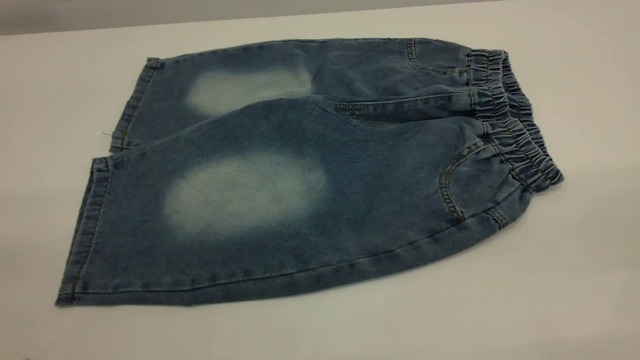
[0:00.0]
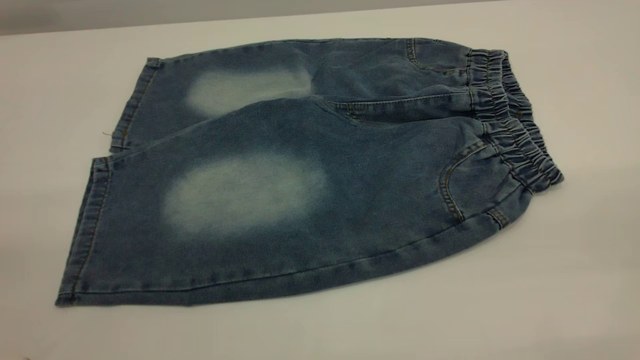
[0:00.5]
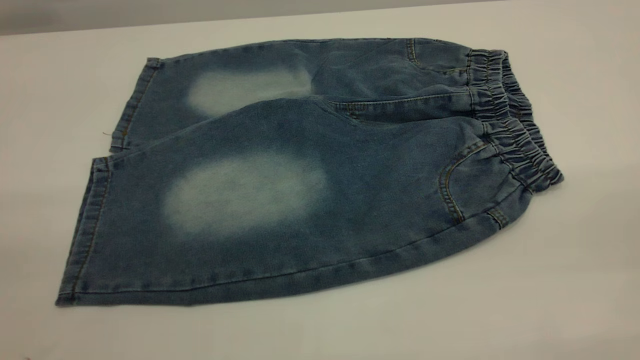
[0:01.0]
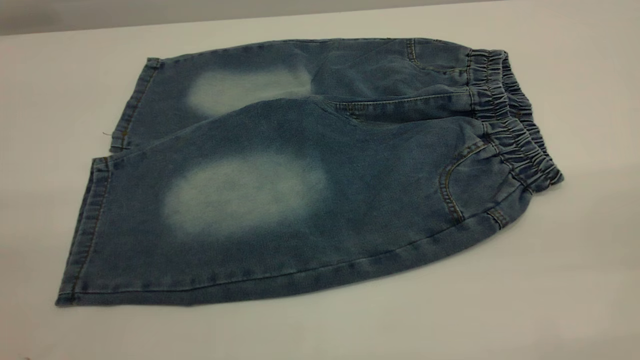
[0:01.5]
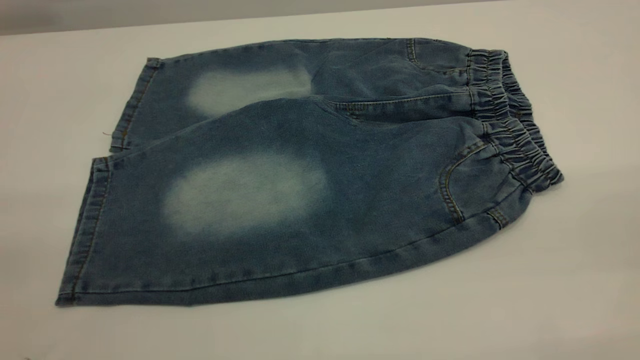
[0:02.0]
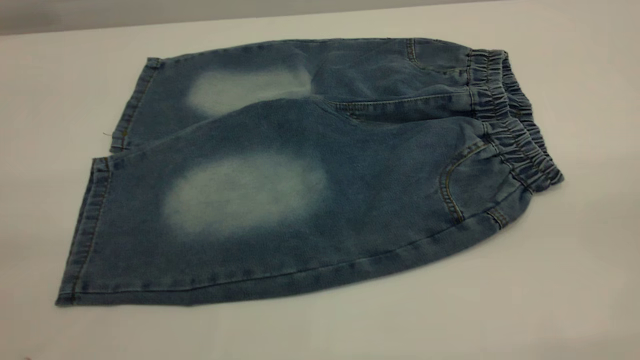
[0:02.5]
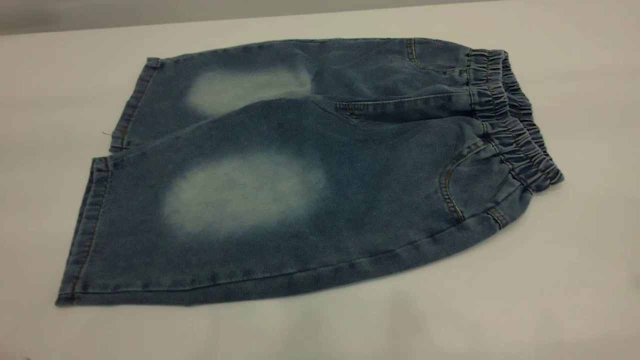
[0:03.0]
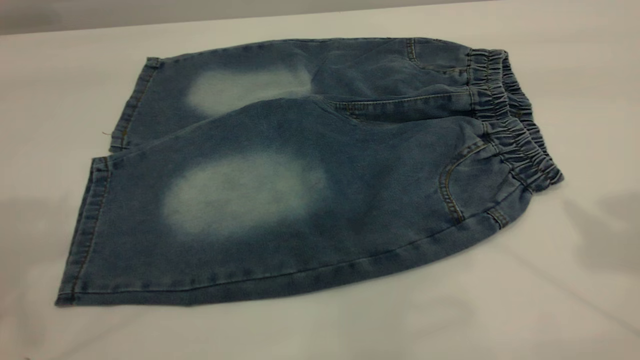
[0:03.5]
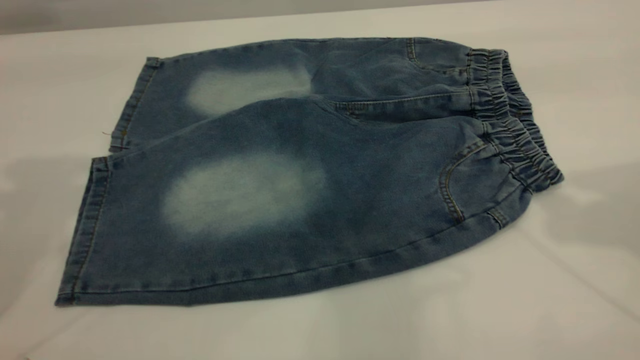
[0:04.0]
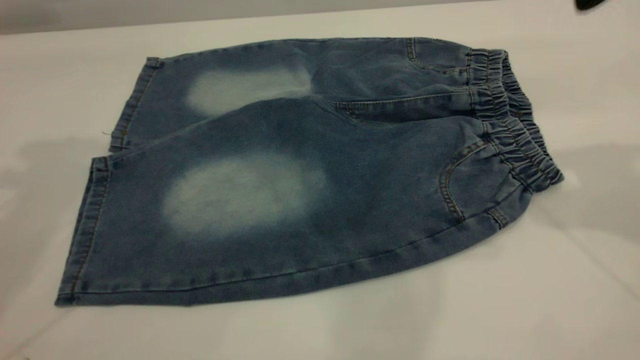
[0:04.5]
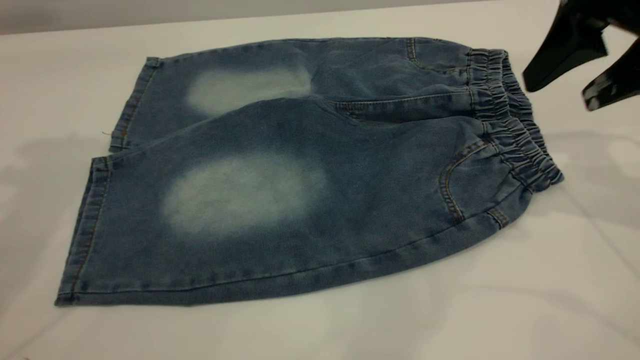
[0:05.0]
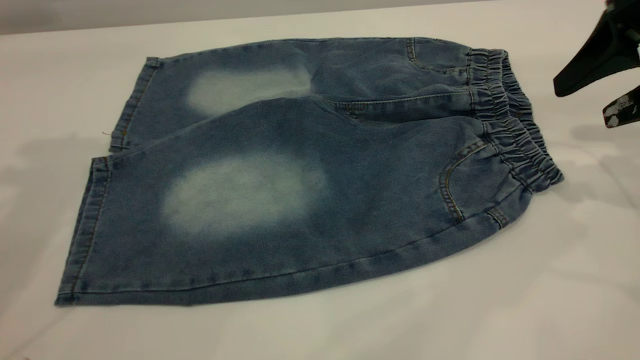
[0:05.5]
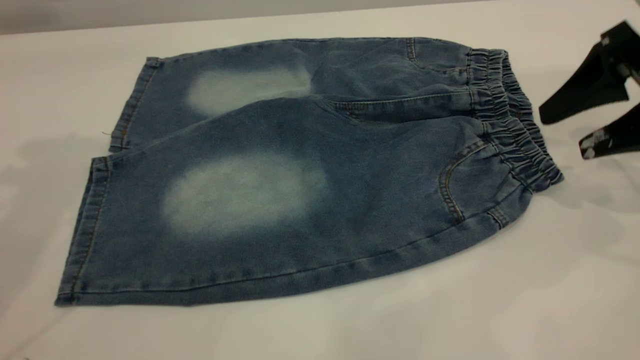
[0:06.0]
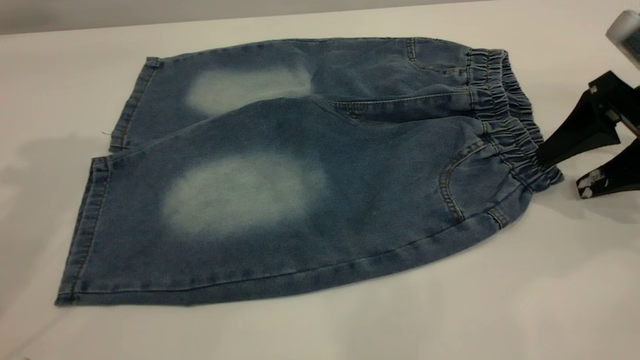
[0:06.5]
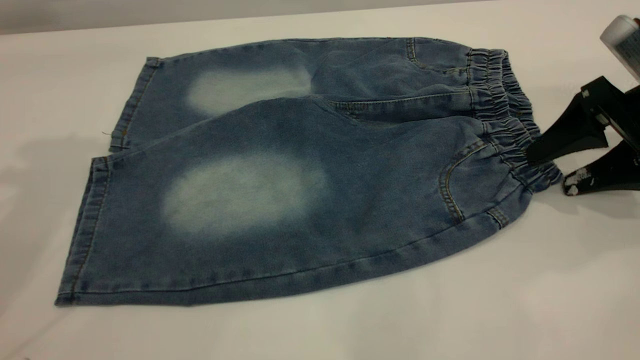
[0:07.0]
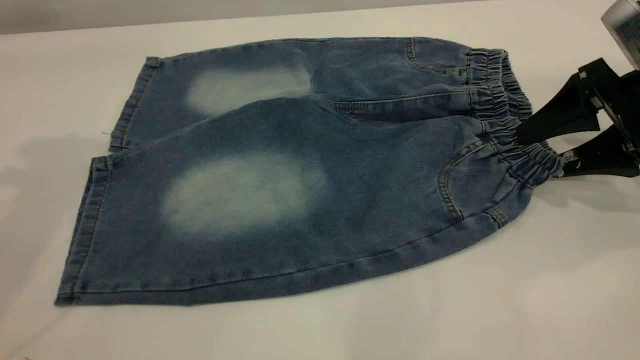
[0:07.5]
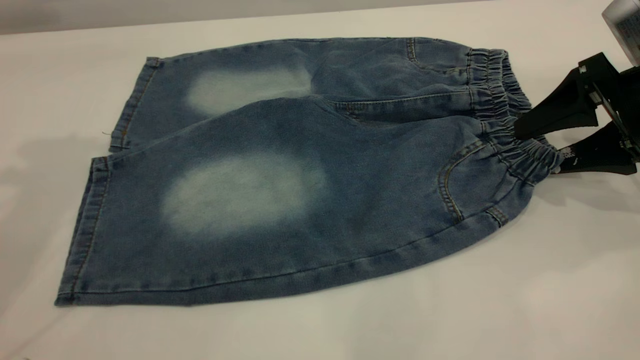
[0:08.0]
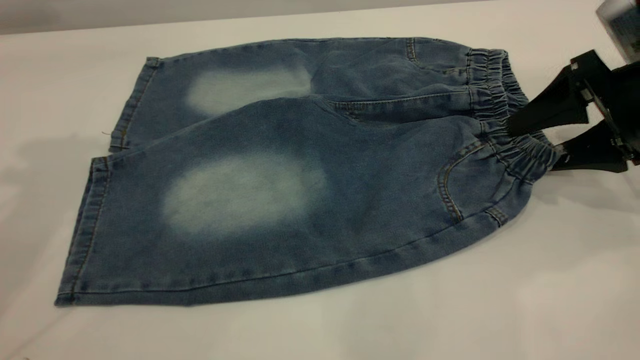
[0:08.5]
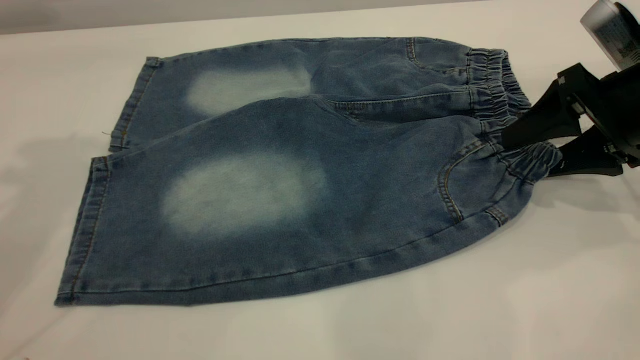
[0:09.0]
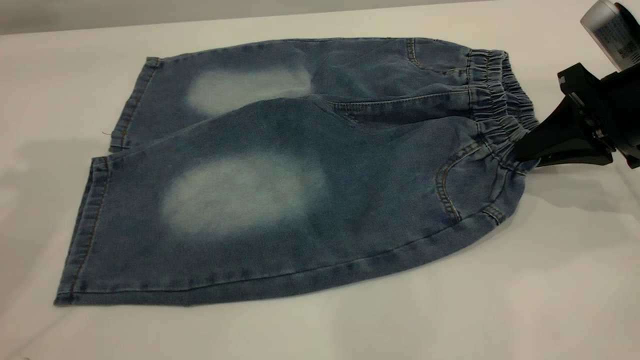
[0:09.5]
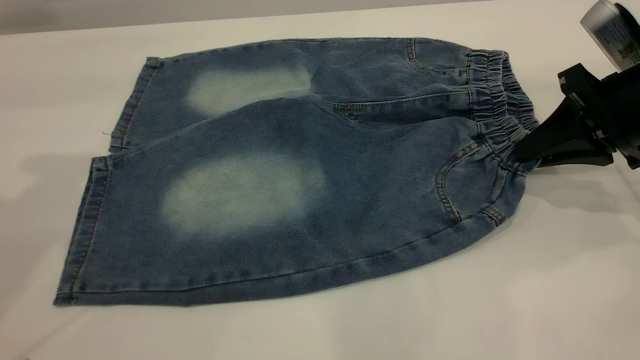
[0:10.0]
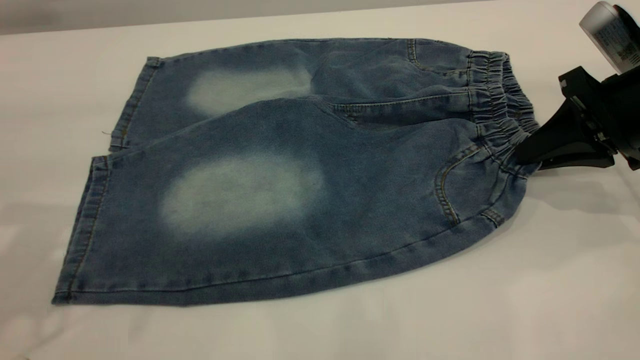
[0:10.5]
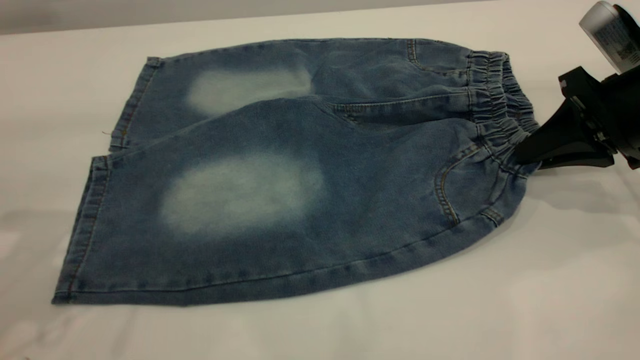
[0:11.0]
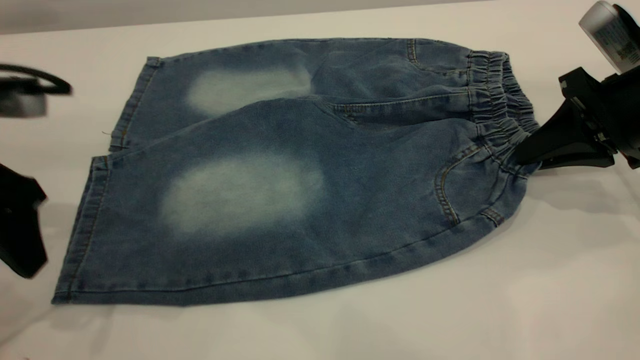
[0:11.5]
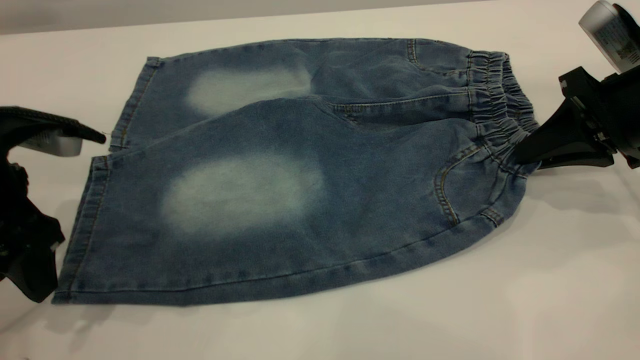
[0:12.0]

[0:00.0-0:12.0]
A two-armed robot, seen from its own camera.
0:00.0 to 0:02.0: Neither gripper changes place.
0:04.0 to 0:06.0: The right gripper moves downward, some 20 cm.
0:06.0 to 0:08.0: The grippers make only small movements.
0:08.0 to 0:10.0: The right gripper closes.
0:10.0 to 0:12.0: The left gripper heads downward, covering roughly 20 cm.

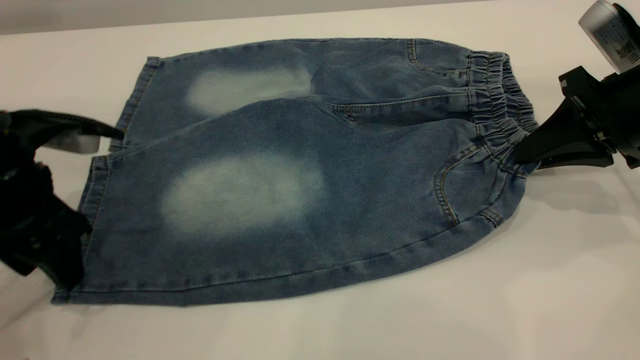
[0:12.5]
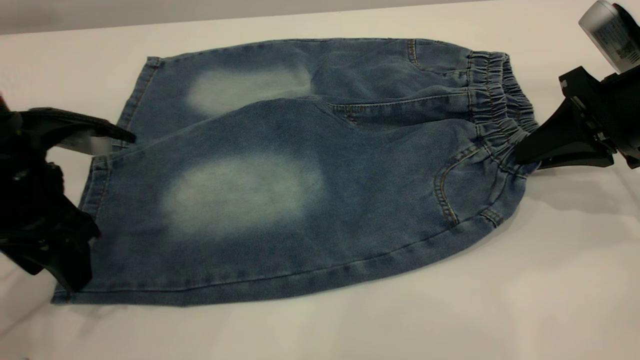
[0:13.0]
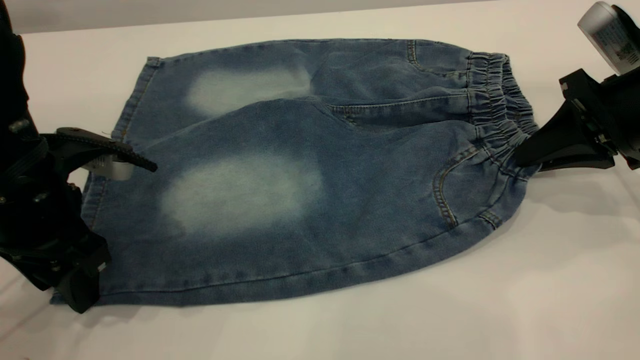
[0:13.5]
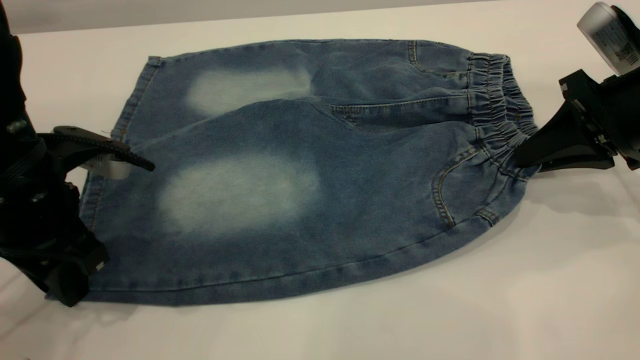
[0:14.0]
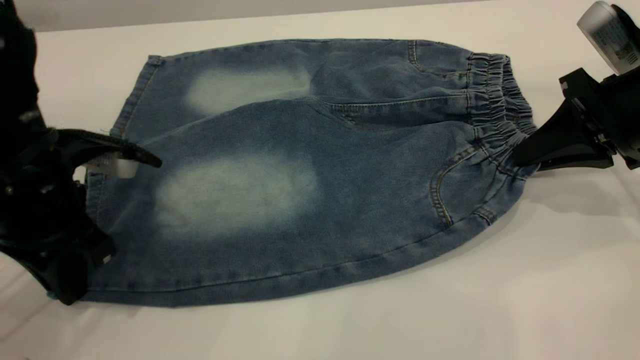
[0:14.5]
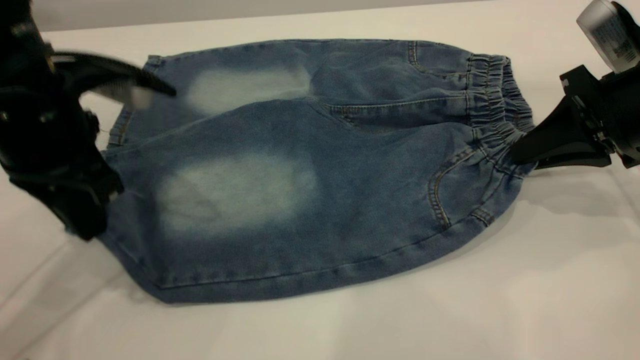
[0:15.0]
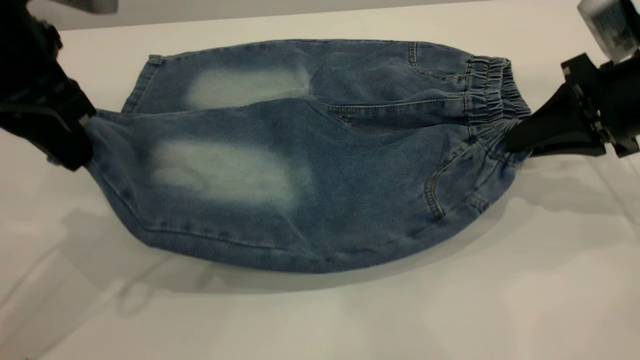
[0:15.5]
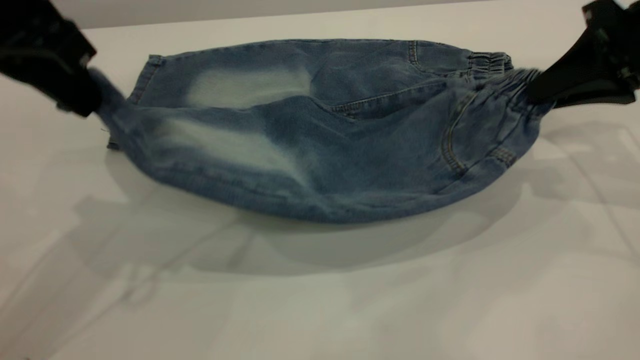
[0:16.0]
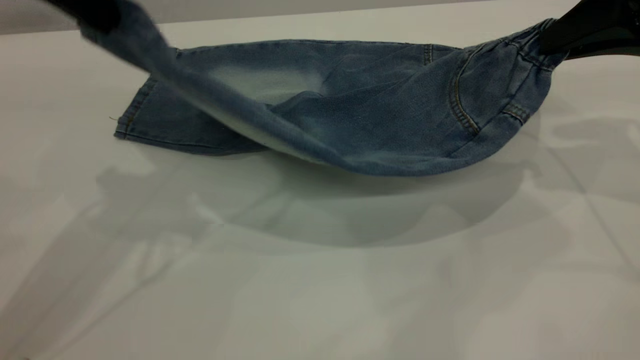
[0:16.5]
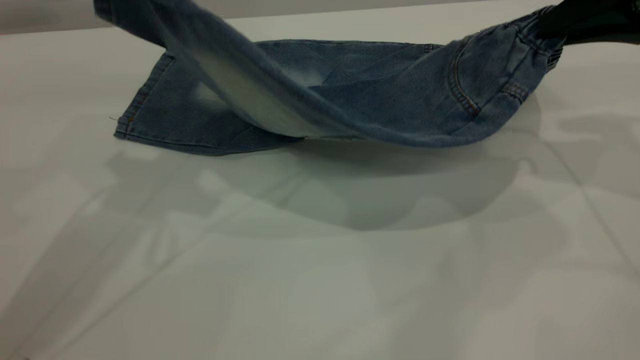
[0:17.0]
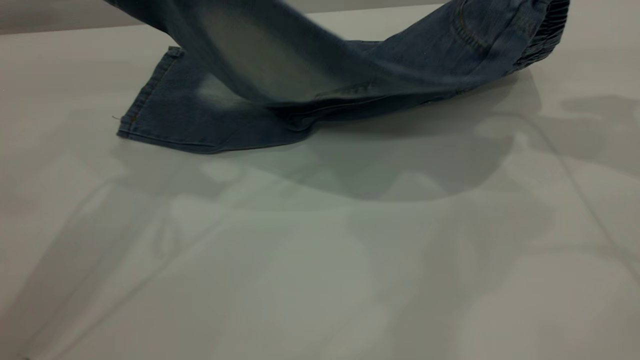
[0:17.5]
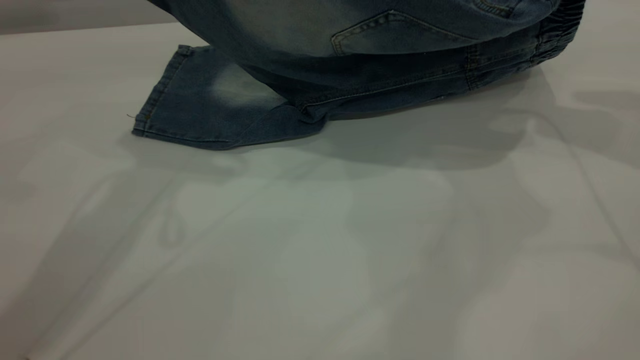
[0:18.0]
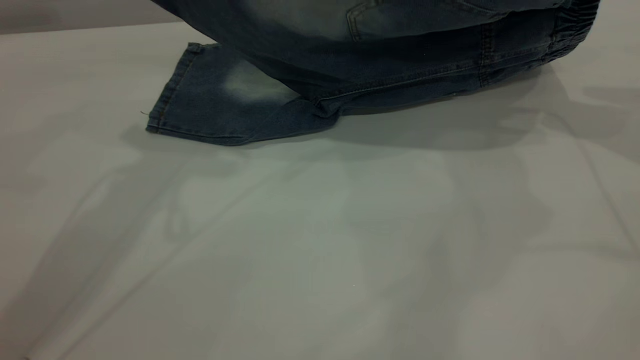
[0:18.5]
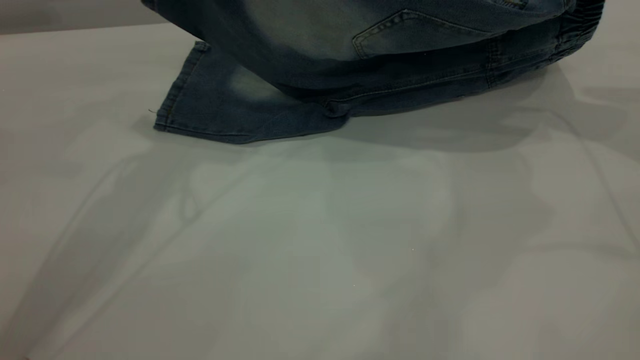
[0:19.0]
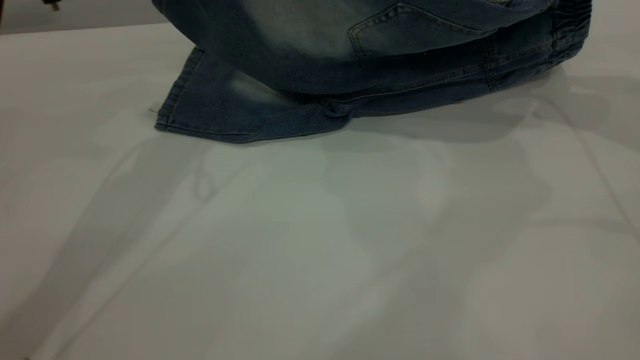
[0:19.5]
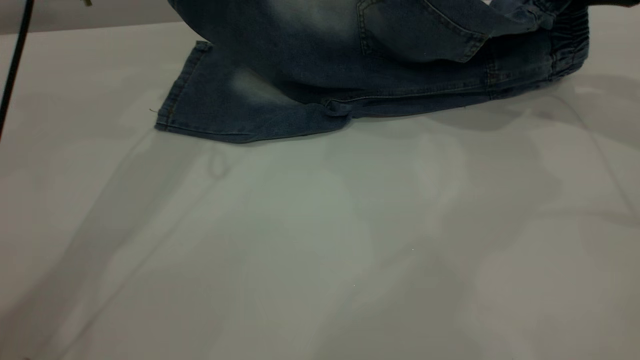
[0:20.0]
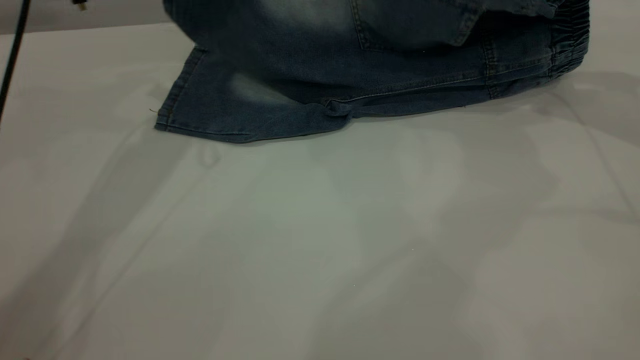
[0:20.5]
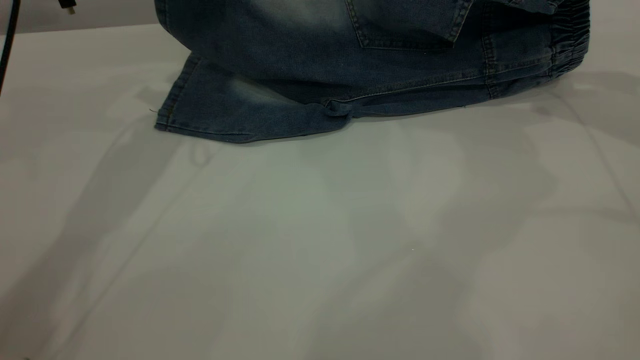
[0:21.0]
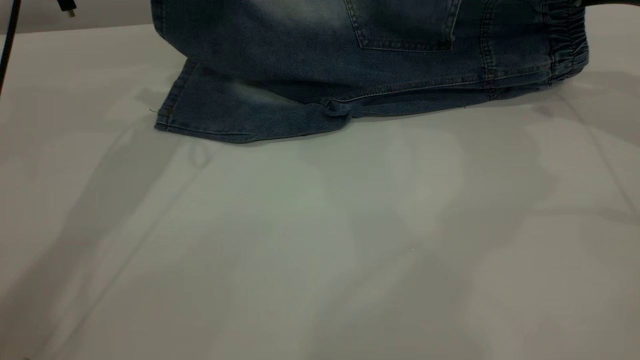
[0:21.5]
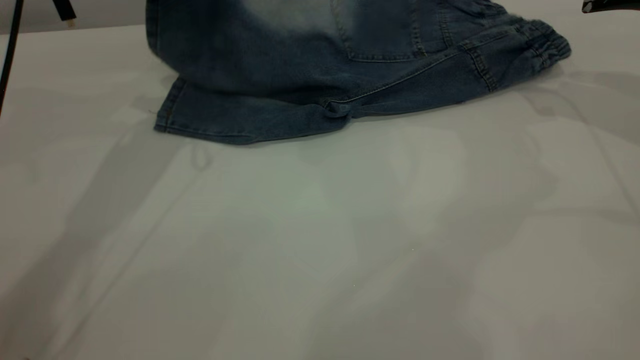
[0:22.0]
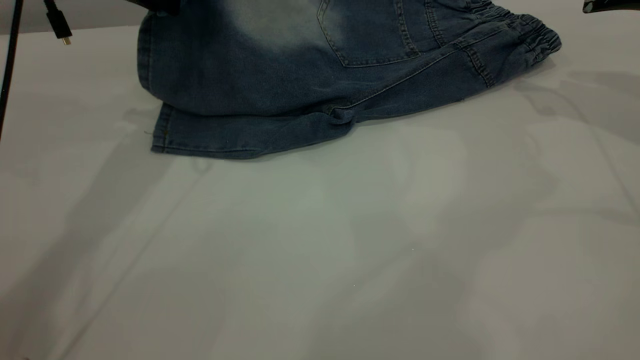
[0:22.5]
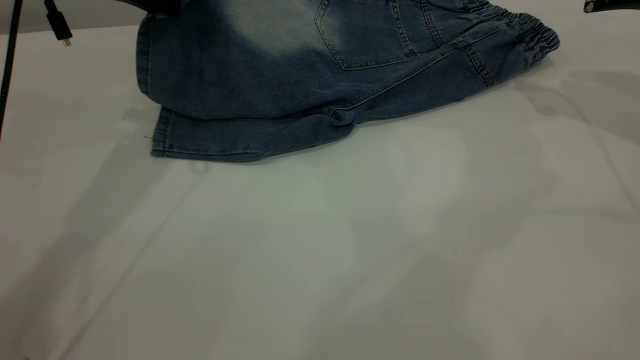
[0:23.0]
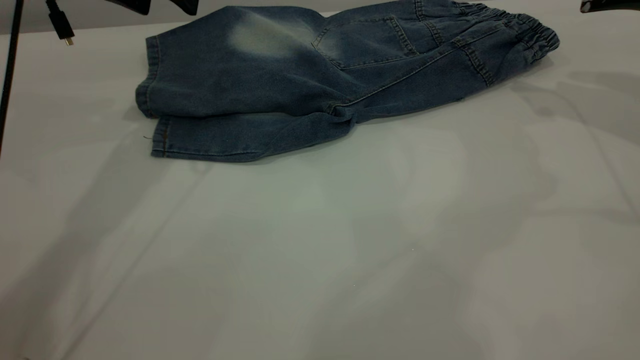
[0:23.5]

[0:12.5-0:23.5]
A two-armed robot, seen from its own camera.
Step, 0:12.5 to 0:23.5: Fold the bottom of the pants upward.
0:12.5 to 0:14.5: The left gripper closes.
0:14.5 to 0:16.0: The right gripper heads upward, covering roughly 5 cm, while the left gripper heads upward, covering some 15 cm.
0:16.0 to 0:18.0: The left gripper shifts approximately 10 cm upward and forward; the right gripper heads upward, covering roughly 5 cm.
0:18.0 to 0:20.0: The left gripper shifts about 10 cm forward and downward.
0:20.0 to 0:21.5: The right gripper opens up.
0:21.5 to 0:23.5: The left gripper opens up.
